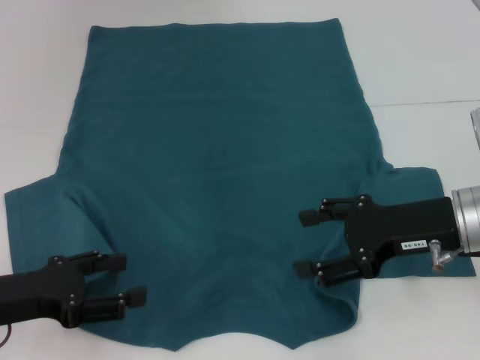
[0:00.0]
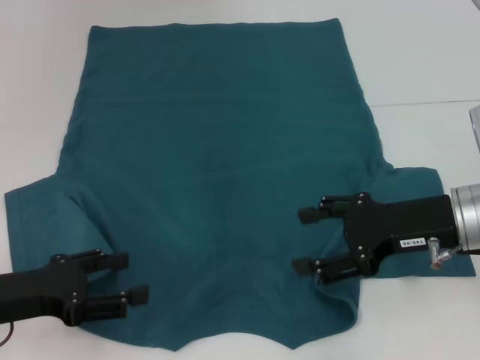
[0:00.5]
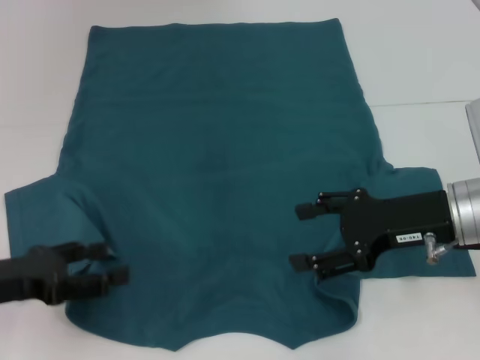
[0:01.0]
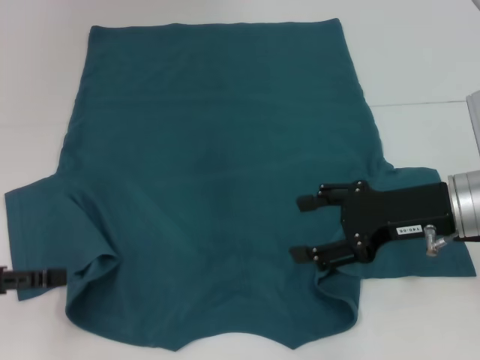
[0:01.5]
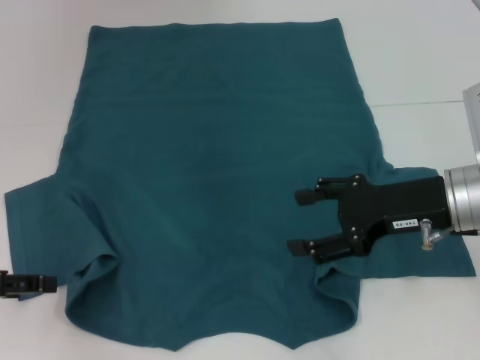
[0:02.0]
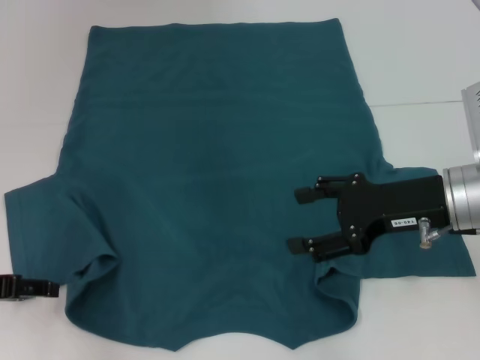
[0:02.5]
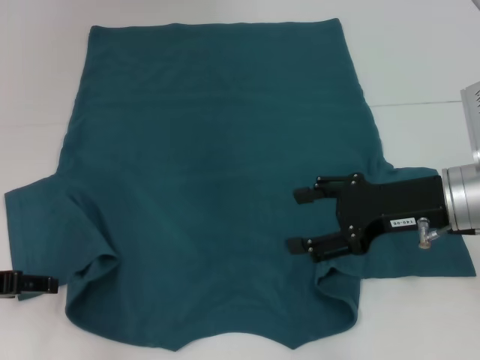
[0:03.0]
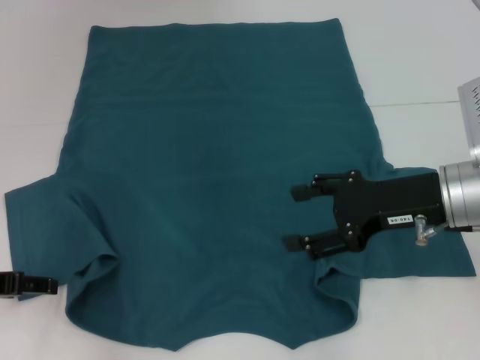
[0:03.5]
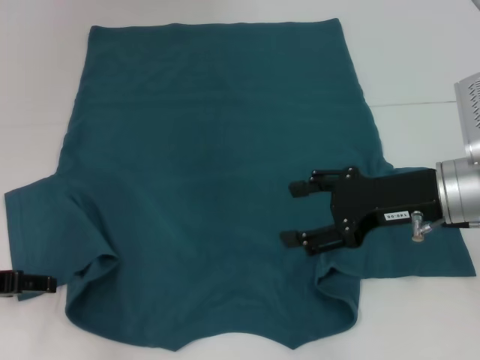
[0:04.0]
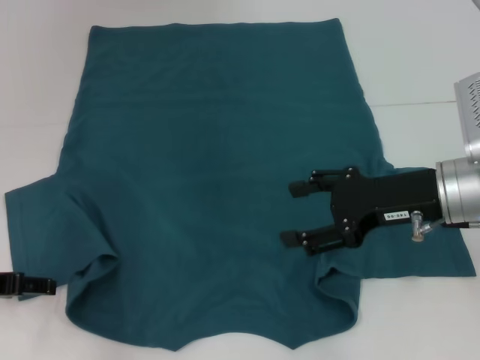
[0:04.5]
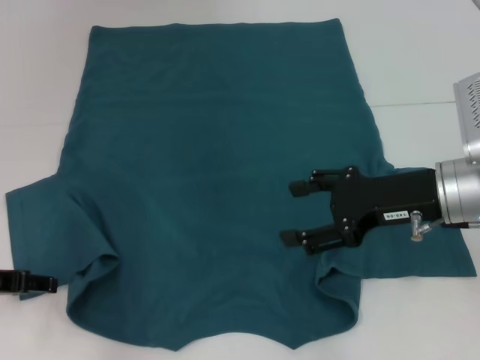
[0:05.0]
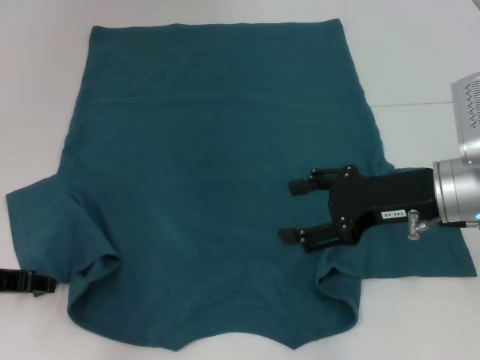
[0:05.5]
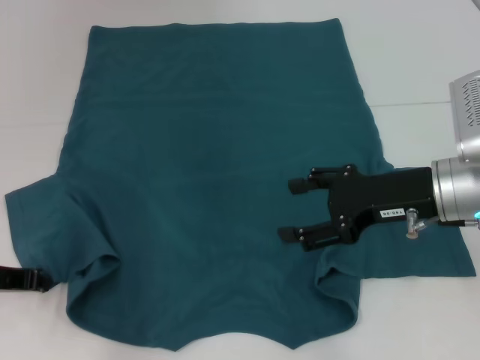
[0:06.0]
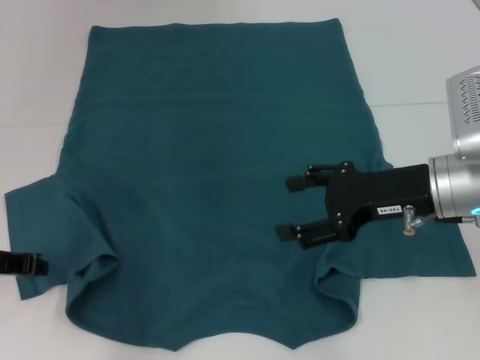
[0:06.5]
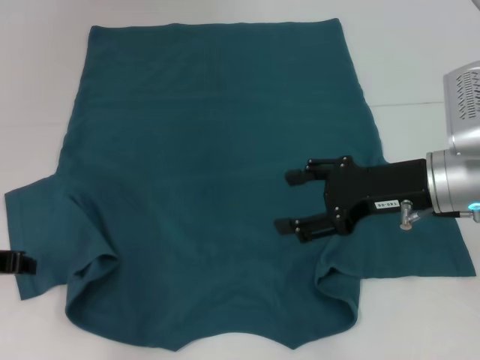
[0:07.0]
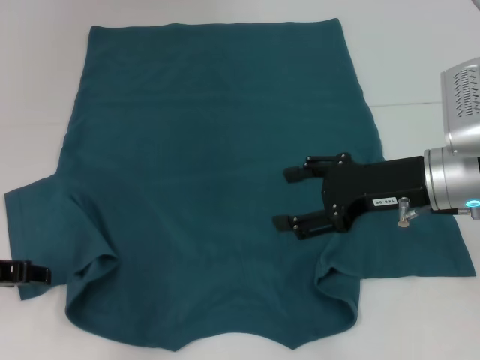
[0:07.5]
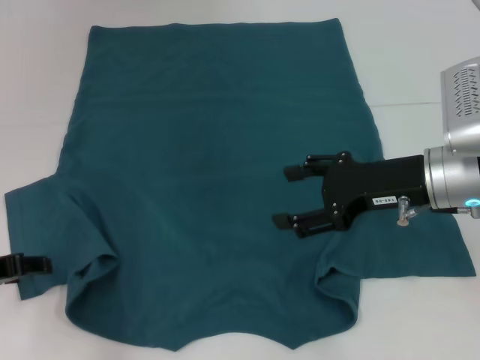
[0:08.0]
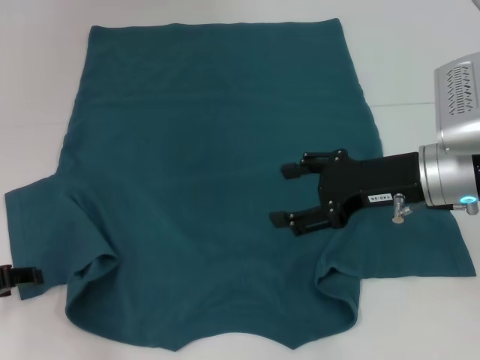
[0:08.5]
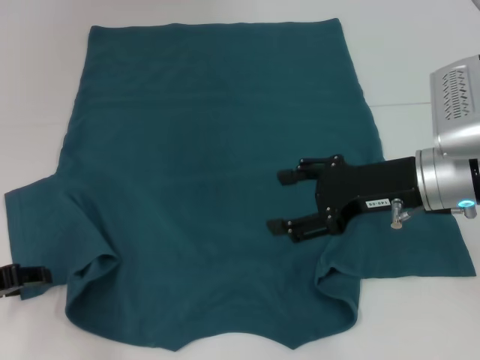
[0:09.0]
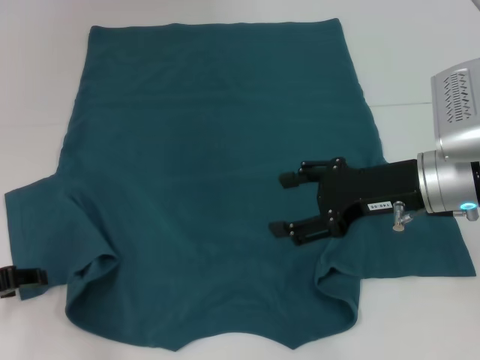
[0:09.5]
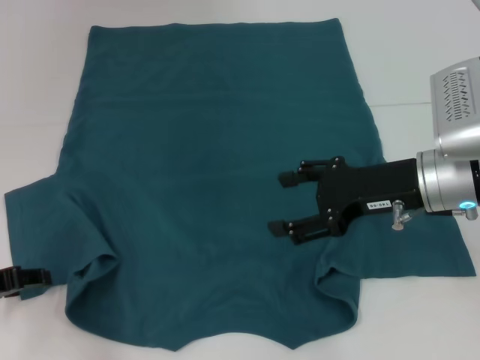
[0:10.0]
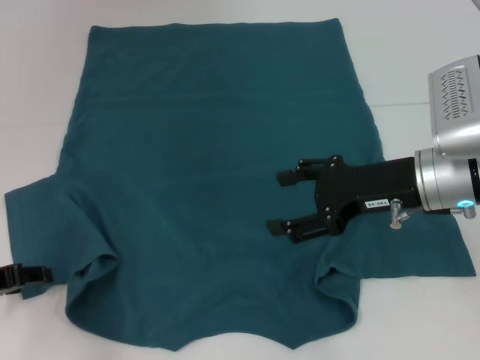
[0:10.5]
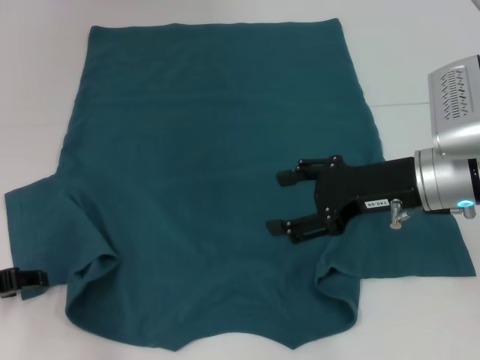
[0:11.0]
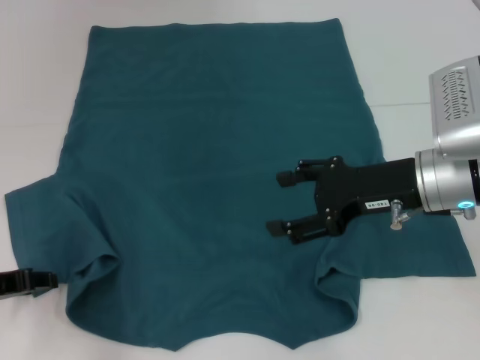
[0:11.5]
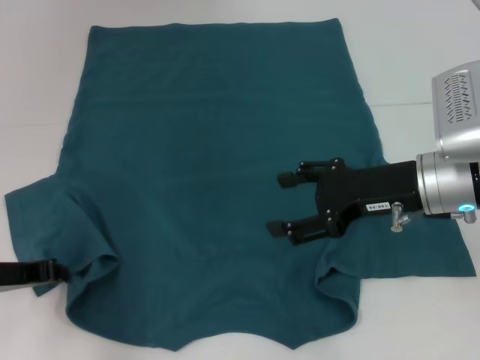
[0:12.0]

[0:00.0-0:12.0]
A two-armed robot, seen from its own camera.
0:00.0 to 0:02.0: The left gripper moves about 5 cm.
0:02.0 to 0:04.0: The grippers stay close to where they were, moving slightly.
0:04.0 to 0:06.0: The left gripper closes its fingers.
0:06.0 to 0:08.0: The left gripper opens.
0:08.0 to 0:10.0: There are only small adjustments of the grippers.
0:10.0 to 0:12.0: The left gripper closes up.

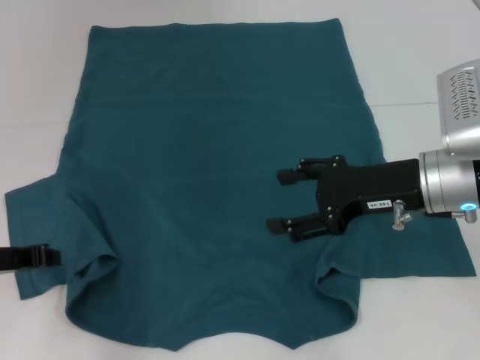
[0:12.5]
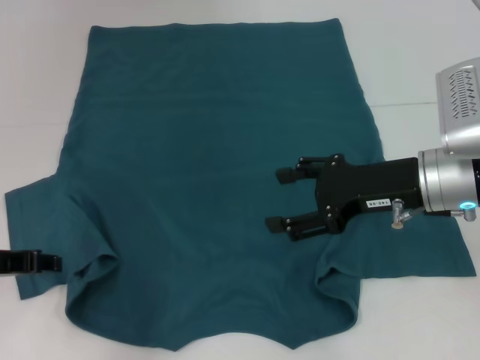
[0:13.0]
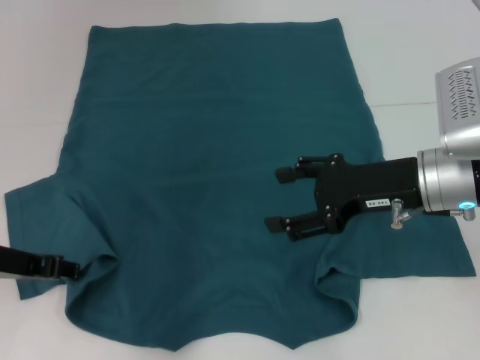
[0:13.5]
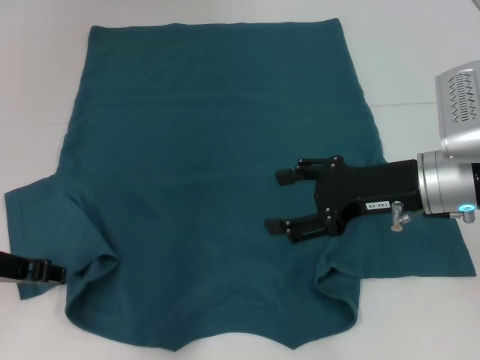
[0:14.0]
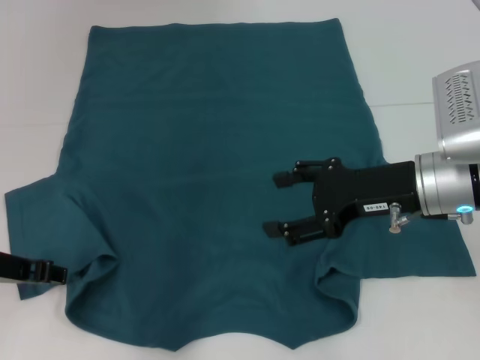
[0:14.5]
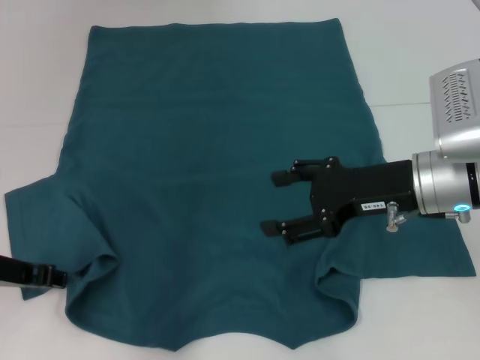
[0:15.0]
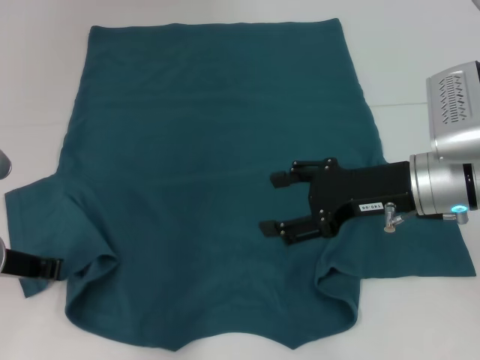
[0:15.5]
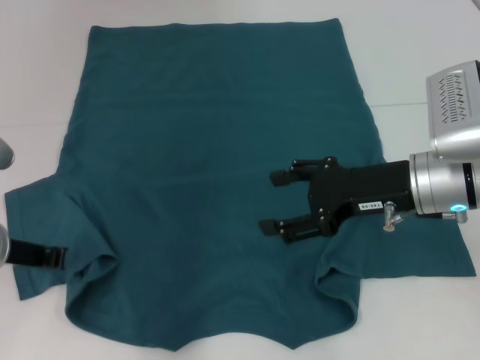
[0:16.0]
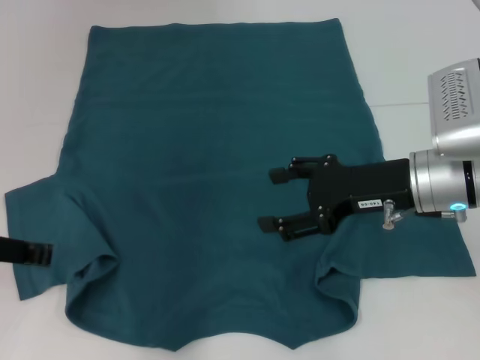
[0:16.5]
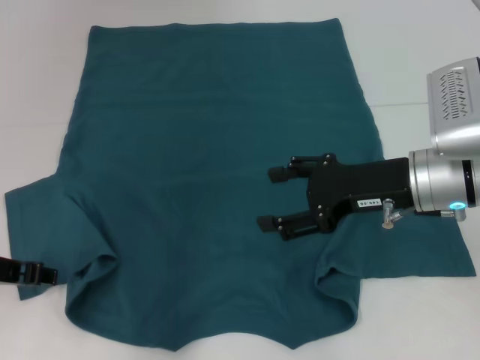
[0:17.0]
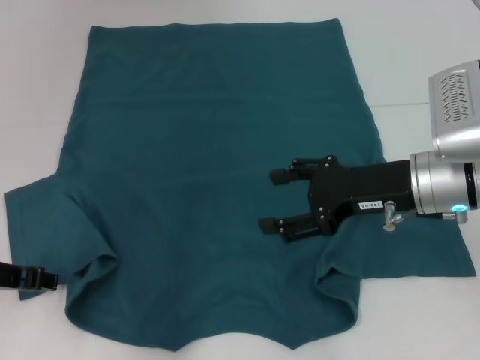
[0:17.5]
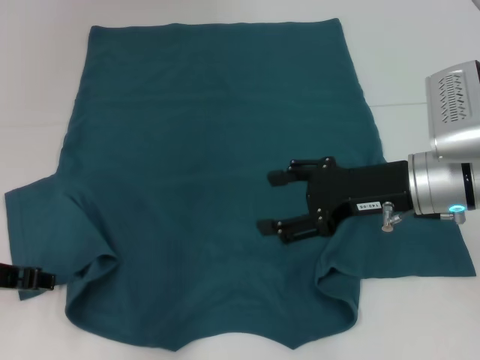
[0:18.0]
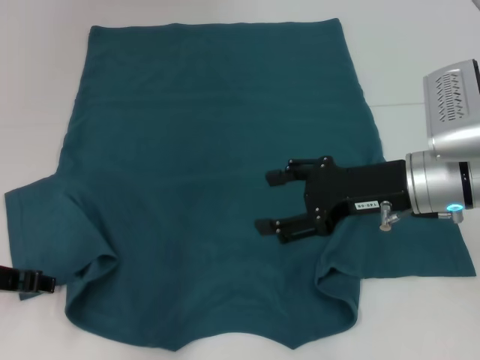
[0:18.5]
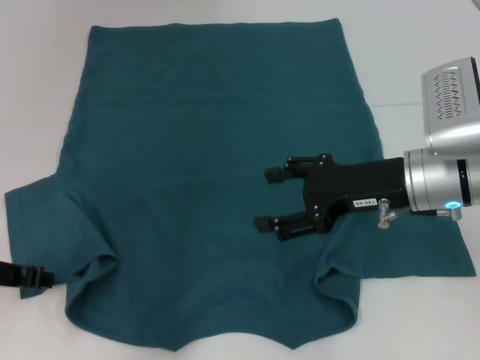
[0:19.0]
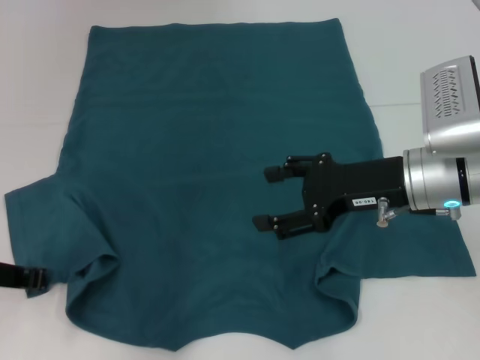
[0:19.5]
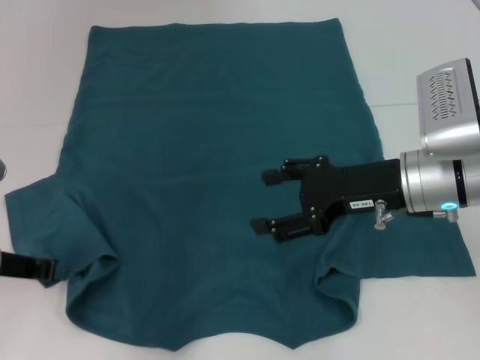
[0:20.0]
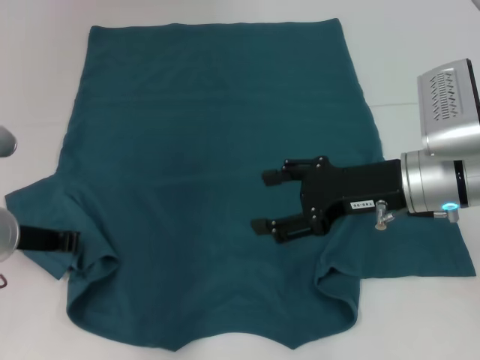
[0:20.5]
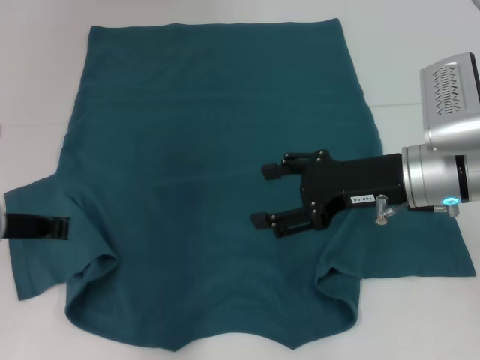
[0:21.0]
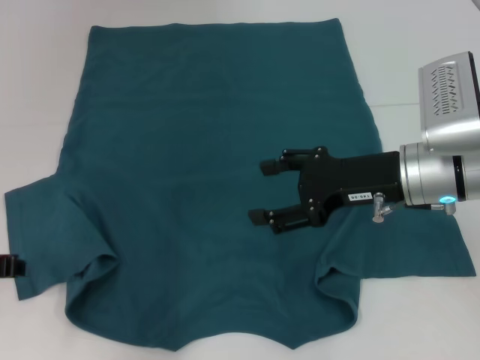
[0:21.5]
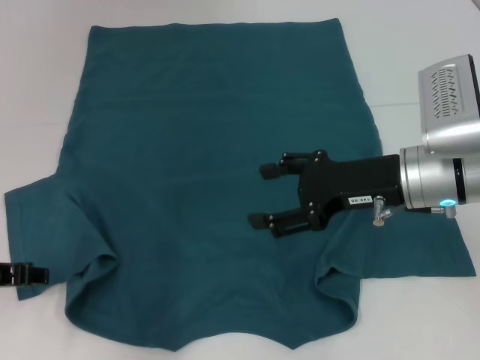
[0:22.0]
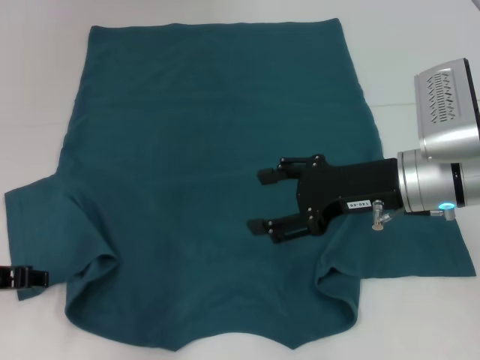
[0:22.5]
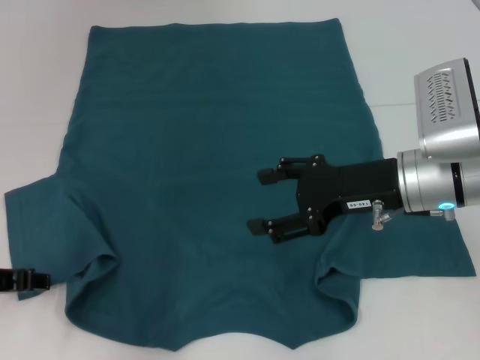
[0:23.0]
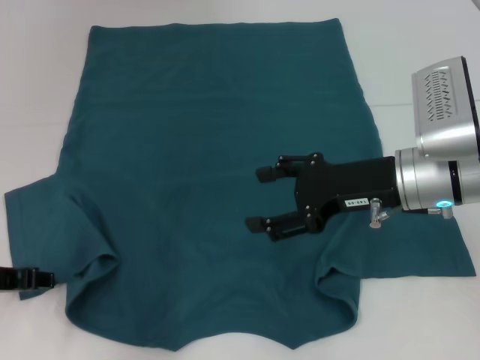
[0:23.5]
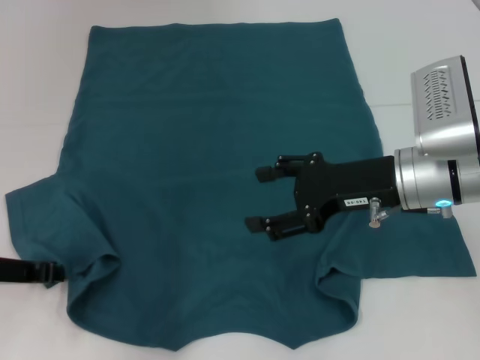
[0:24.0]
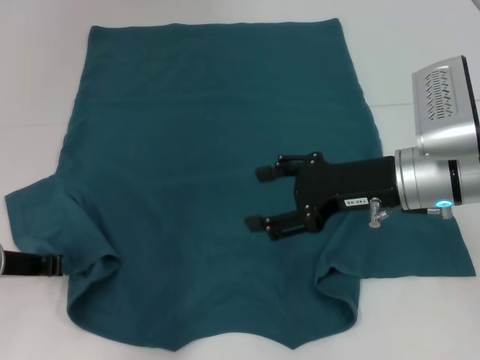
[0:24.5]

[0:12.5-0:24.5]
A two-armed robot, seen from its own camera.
0:12.5 to 0:14.5: The left gripper opens.
0:14.5 to 0:16.5: The left gripper closes.
0:16.5 to 0:18.5: The left gripper opens its fingers.
0:18.5 to 0:20.5: The left gripper closes its fingers.
0:20.5 to 0:22.5: The left gripper shifts by roughly 5 cm, and opens up.
0:22.5 to 0:24.5: The left gripper closes.

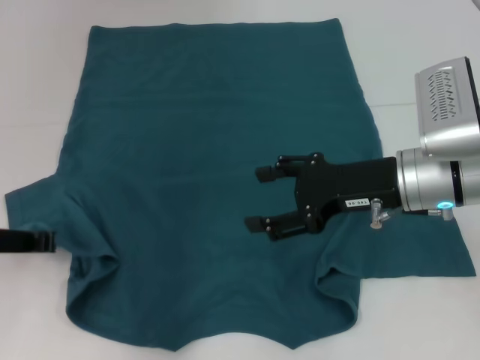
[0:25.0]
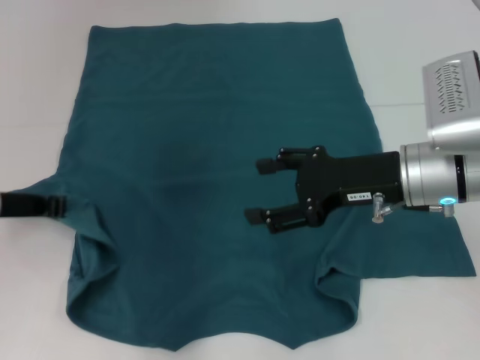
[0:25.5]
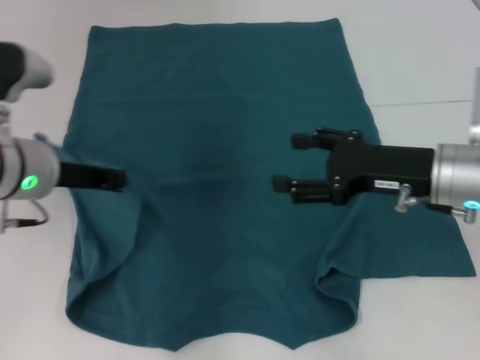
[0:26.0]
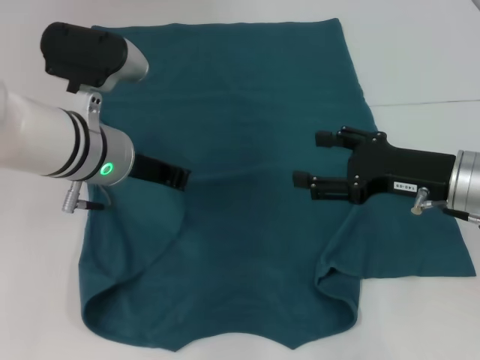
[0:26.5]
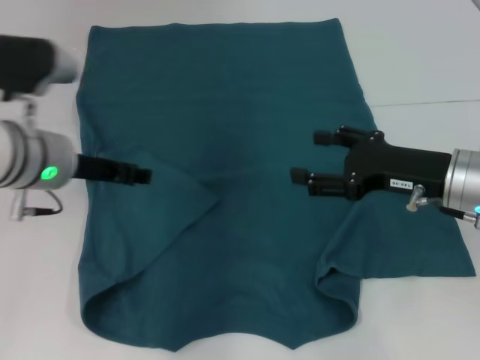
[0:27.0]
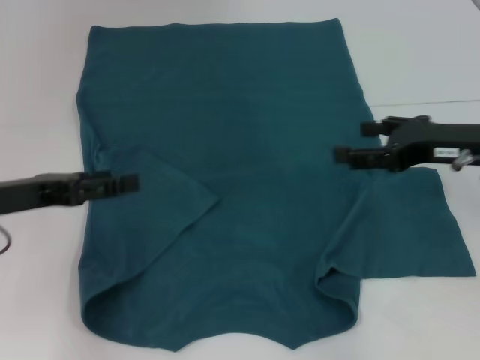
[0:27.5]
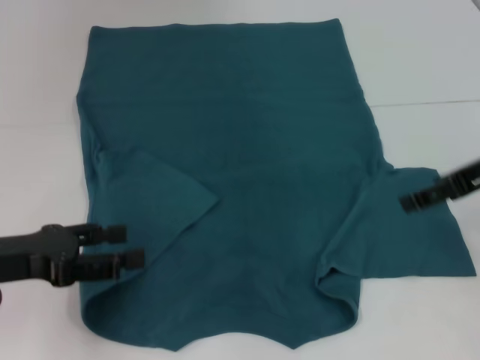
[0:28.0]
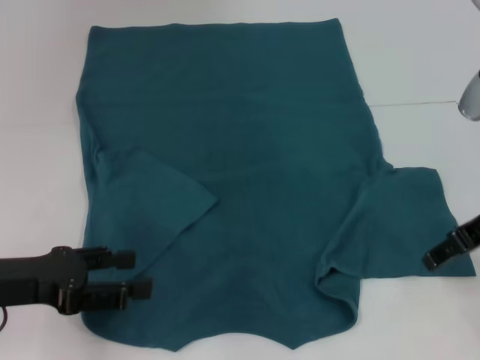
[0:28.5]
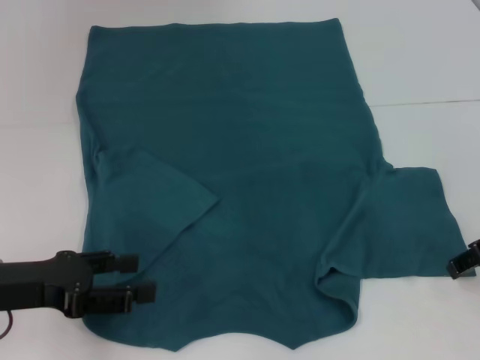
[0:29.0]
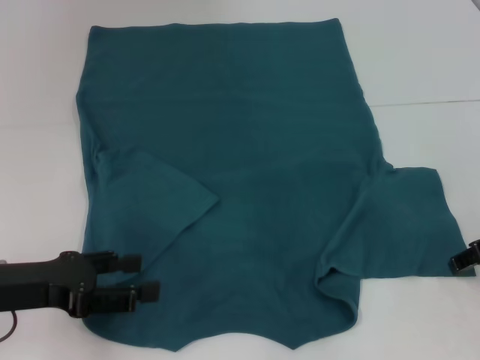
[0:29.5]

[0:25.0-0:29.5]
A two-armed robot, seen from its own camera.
0:25.0 to 0:27.0: The right gripper moves some 5 cm, while the left gripper shifts some 10 cm to the right and forward.
0:27.0 to 0:29.5: The left gripper travels backward and to the left by about 15 cm, and opens up, while the right gripper travels to the right by roughly 5 cm, and moves roughly 10 cm upward and comes back.
